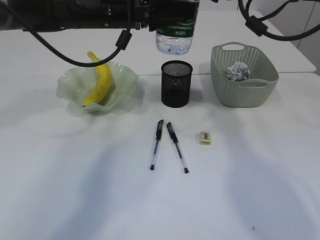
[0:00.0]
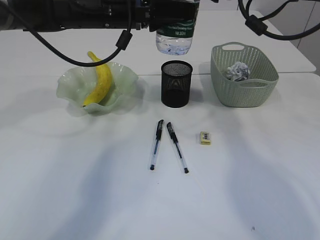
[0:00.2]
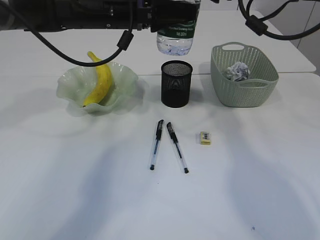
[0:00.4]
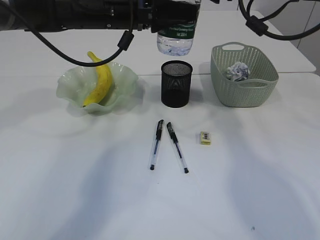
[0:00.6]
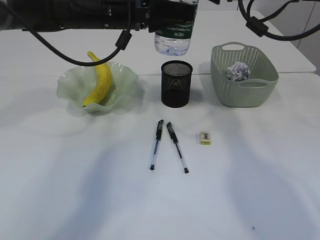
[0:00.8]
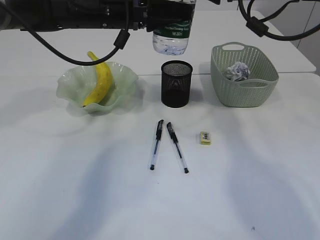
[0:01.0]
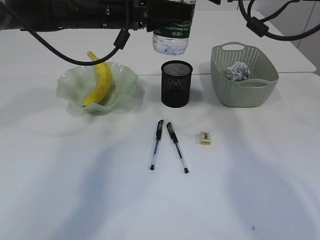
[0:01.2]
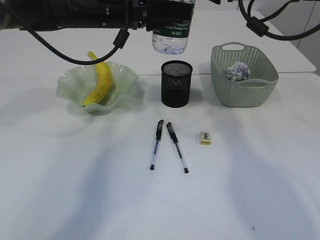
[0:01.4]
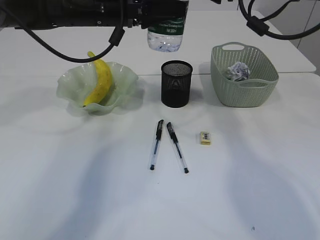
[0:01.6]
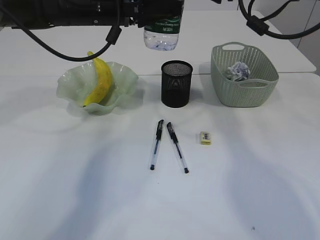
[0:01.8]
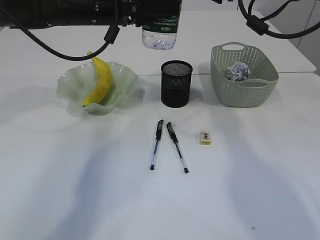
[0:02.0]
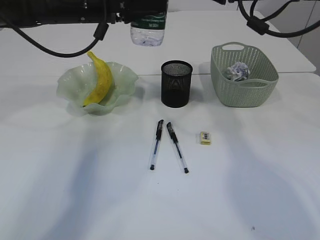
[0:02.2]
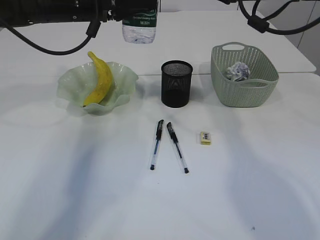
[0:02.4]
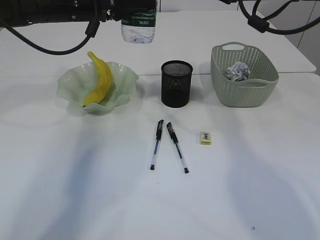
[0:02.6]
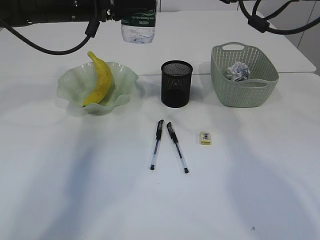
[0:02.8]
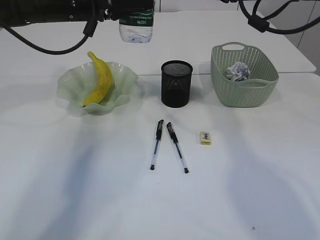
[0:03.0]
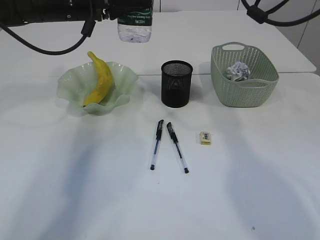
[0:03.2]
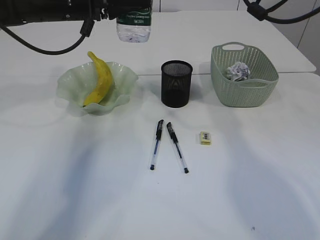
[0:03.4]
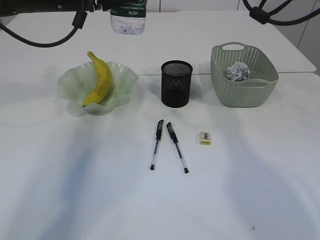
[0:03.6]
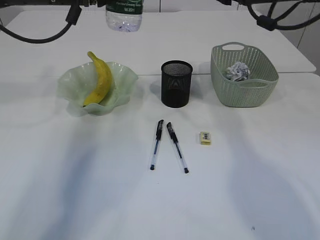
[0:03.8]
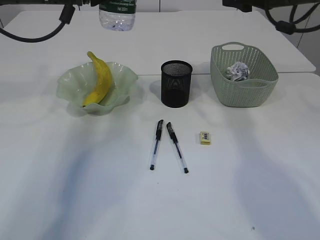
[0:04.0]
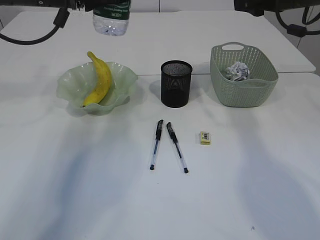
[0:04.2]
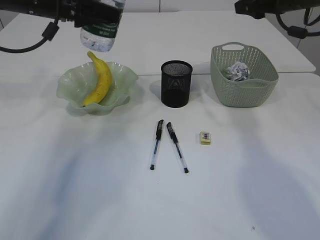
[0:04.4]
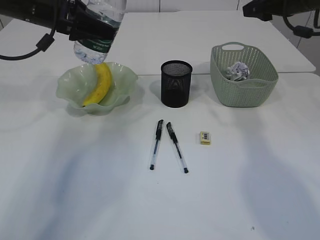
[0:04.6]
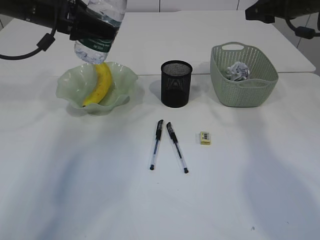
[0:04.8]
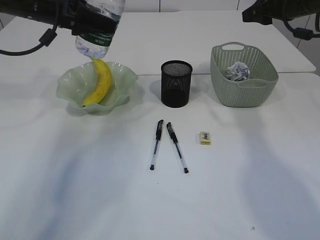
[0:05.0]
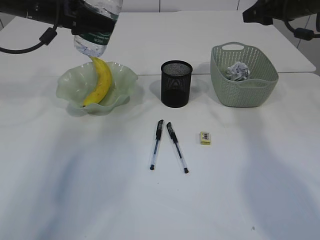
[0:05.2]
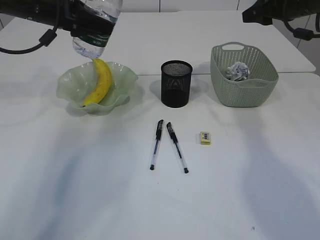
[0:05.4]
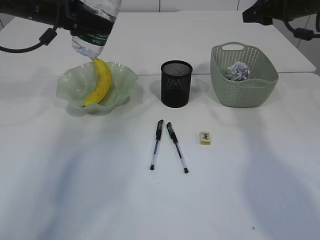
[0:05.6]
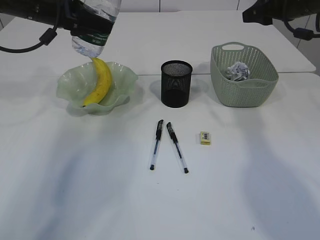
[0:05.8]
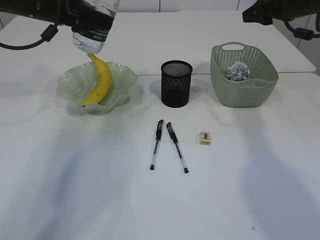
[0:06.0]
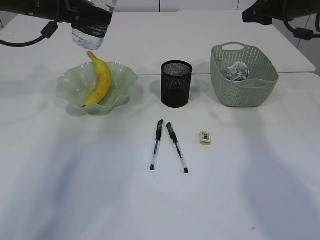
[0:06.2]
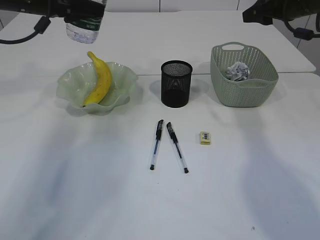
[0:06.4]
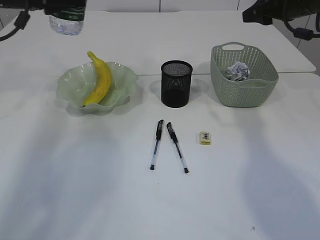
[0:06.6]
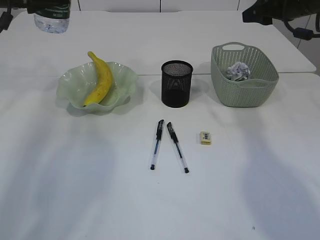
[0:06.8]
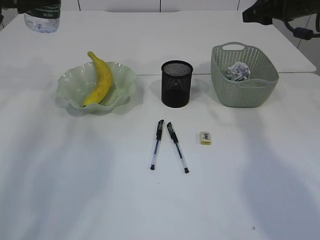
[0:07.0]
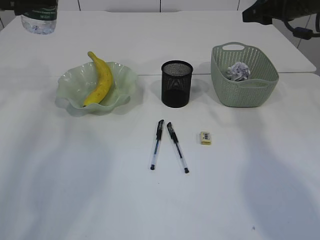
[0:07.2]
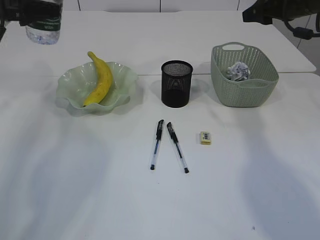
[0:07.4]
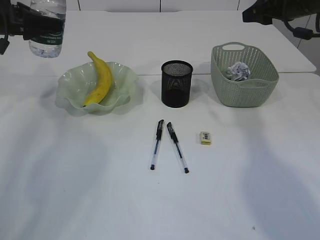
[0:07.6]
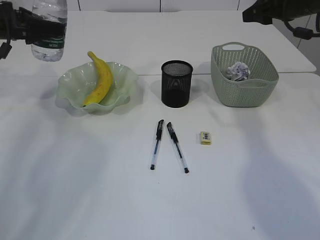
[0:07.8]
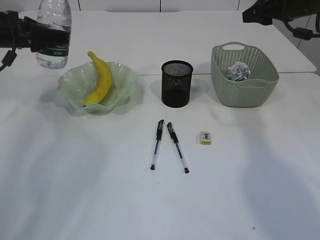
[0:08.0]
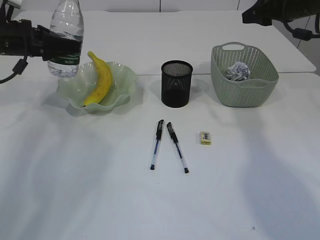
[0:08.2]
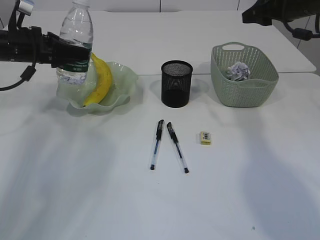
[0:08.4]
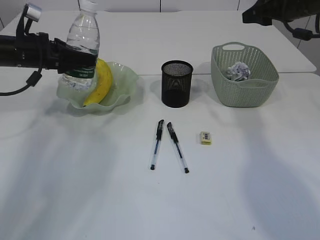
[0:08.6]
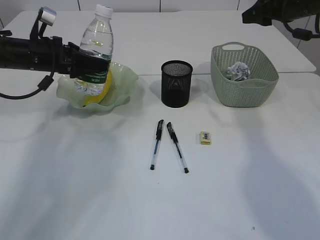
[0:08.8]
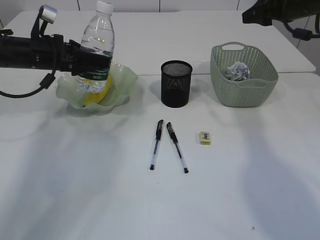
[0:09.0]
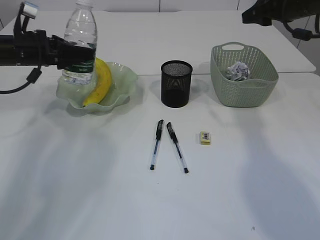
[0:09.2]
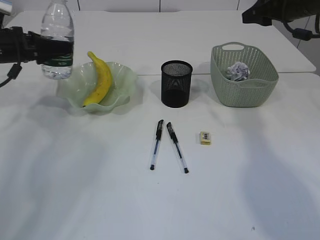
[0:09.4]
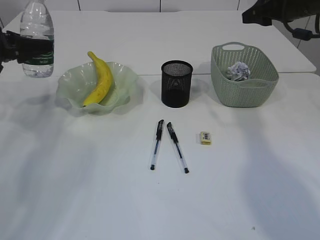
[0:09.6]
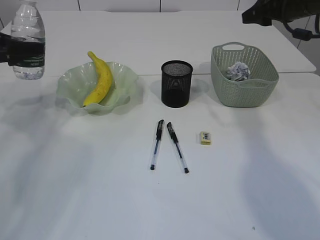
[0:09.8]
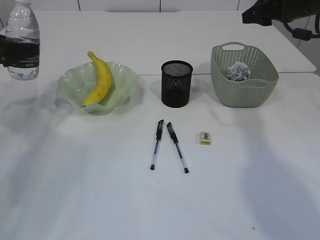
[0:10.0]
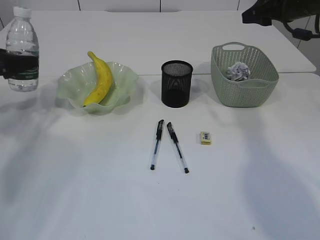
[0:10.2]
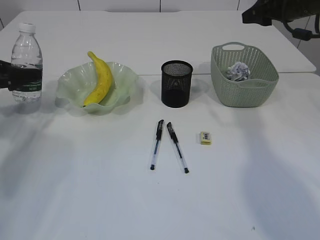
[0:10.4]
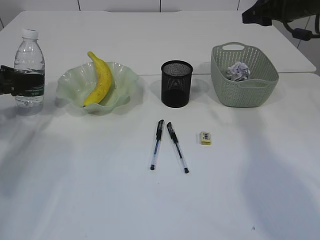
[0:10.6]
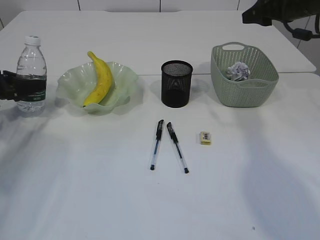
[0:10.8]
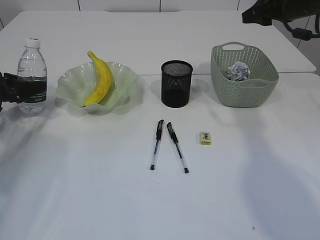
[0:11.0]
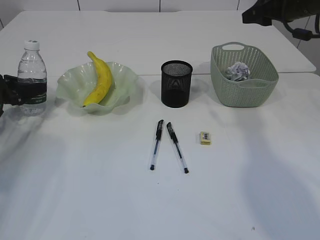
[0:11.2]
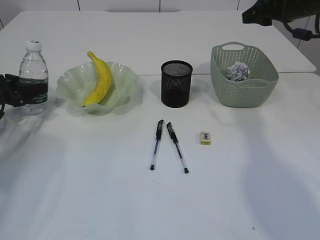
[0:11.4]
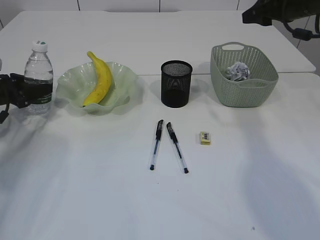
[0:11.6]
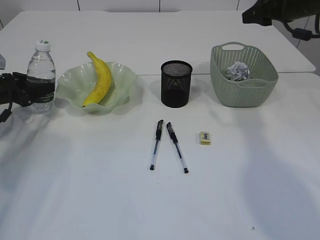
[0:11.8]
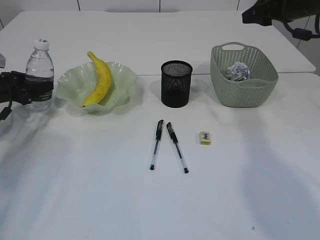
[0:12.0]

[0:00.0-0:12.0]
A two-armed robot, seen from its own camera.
Step, 0:00.0 to 0:02.4: transfer the bottle to the left arm.
0:00.0 to 0:01.6: The grippers make only small movements.
0:01.6 to 0:03.0: The left gripper goes some 5 cm to the left. The right gripper closes its fingers.
0:03.0 to 0:04.4: The left gripper is displaced to the left by approximately 5 cm; the right gripper shifts roughly 10 cm to the right.
0:04.4 to 0:06.0: There are only small adjustments of the grippers.
0:06.0 to 0:07.6: The left gripper travels to the left by roughly 10 cm.
0:07.6 to 0:09.0: The left gripper goes approximately 10 cm to the right and downward.
0:09.0 to 0:10.4: The left gripper heads to the left, covering some 15 cm.
0:10.4 to 0:12.0: The left gripper is displaced downward by about 5 cm.

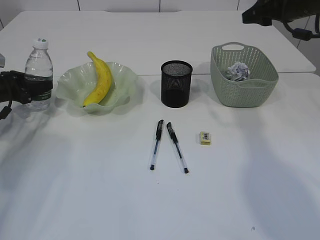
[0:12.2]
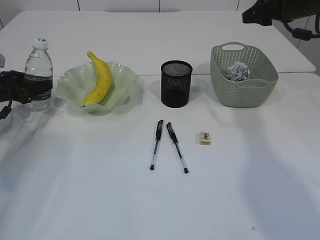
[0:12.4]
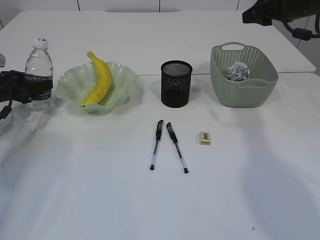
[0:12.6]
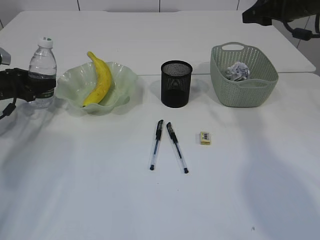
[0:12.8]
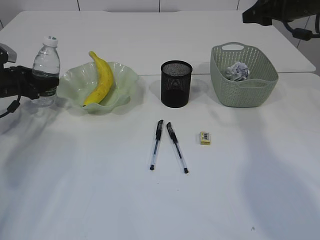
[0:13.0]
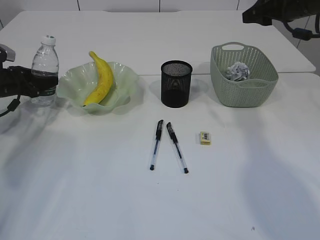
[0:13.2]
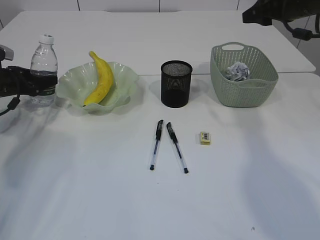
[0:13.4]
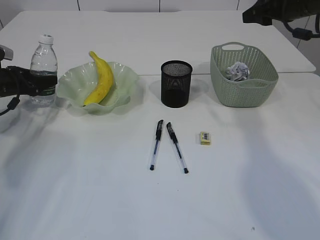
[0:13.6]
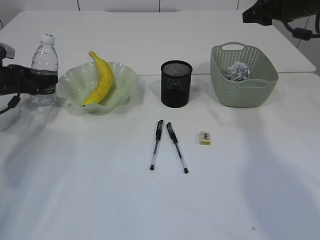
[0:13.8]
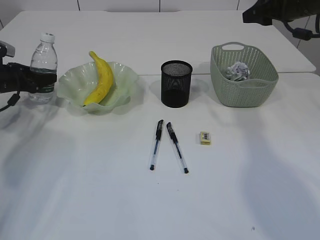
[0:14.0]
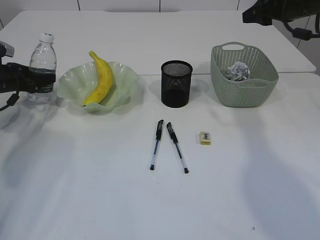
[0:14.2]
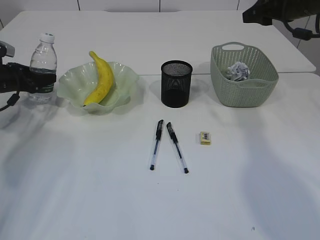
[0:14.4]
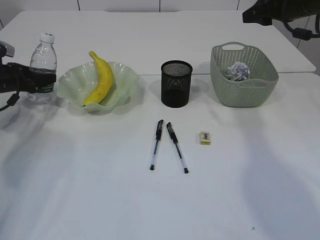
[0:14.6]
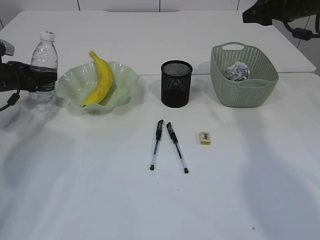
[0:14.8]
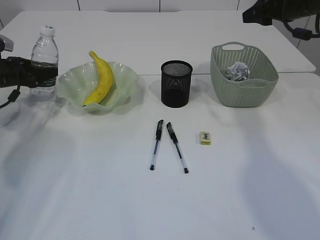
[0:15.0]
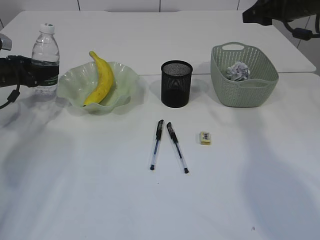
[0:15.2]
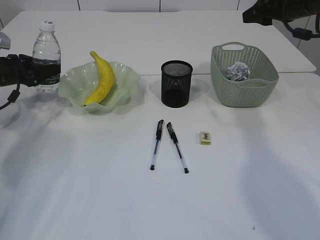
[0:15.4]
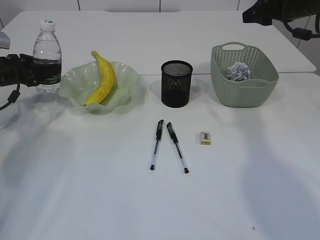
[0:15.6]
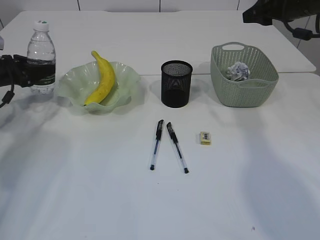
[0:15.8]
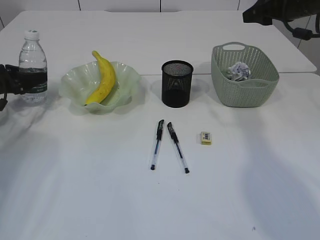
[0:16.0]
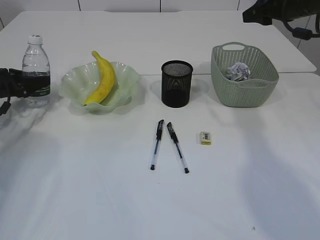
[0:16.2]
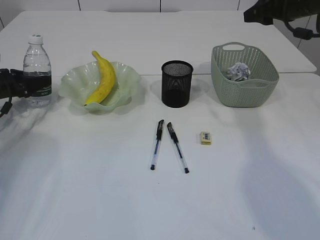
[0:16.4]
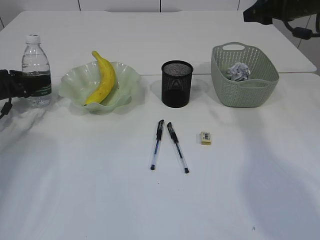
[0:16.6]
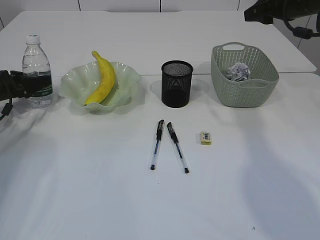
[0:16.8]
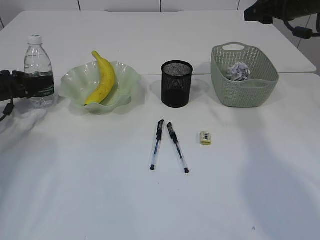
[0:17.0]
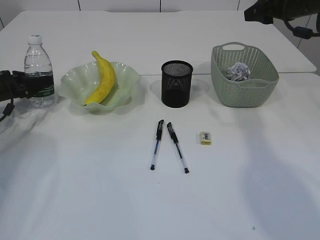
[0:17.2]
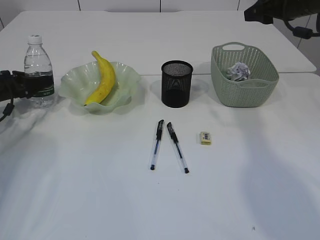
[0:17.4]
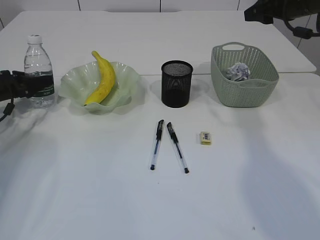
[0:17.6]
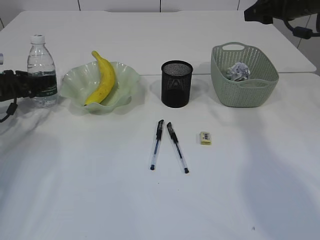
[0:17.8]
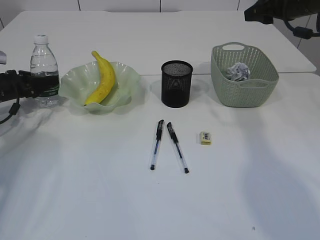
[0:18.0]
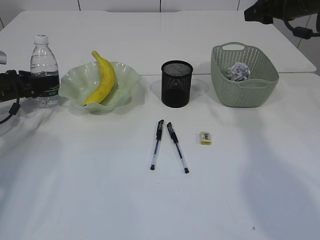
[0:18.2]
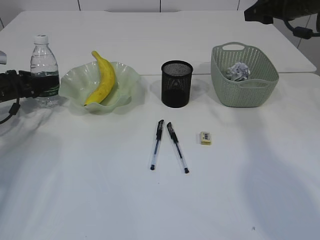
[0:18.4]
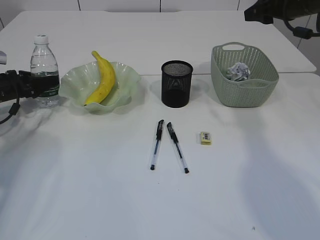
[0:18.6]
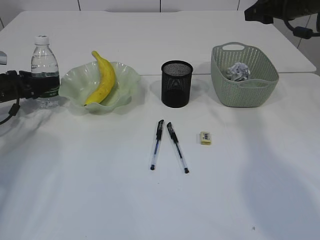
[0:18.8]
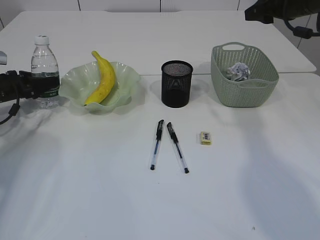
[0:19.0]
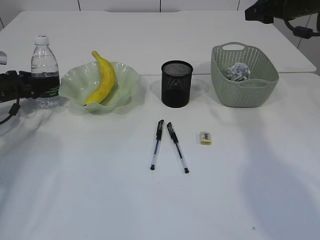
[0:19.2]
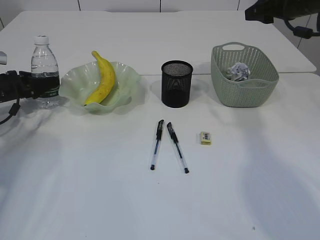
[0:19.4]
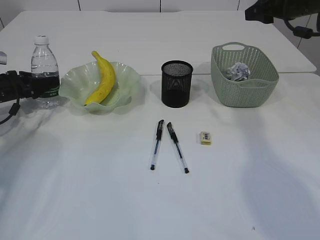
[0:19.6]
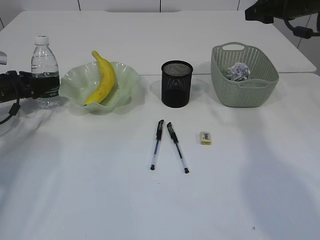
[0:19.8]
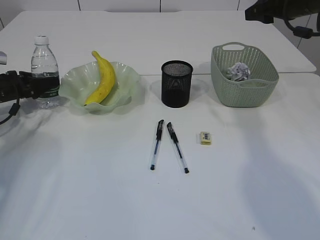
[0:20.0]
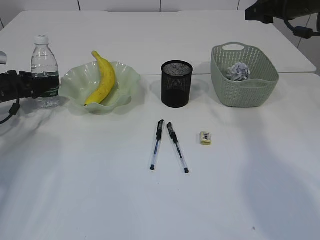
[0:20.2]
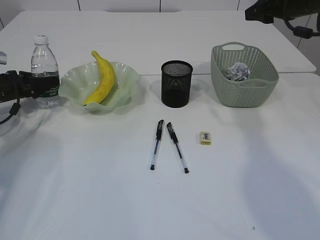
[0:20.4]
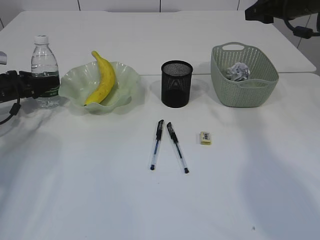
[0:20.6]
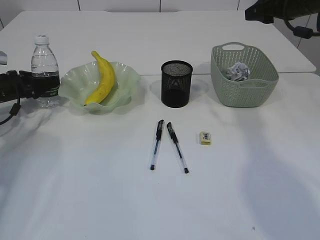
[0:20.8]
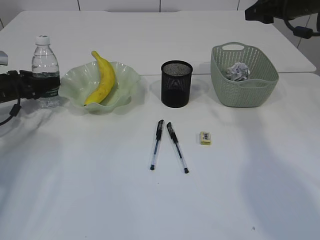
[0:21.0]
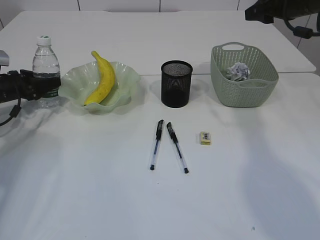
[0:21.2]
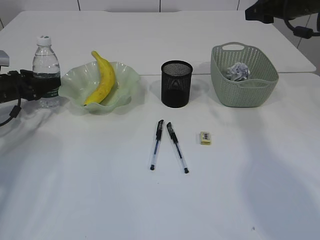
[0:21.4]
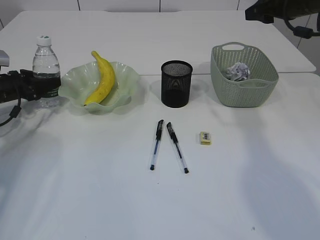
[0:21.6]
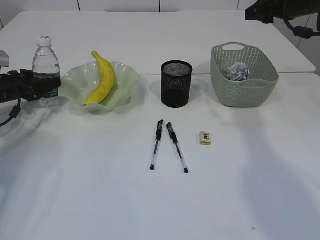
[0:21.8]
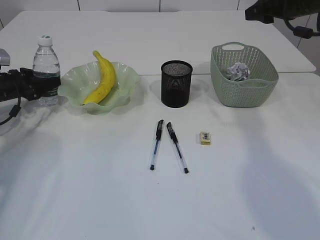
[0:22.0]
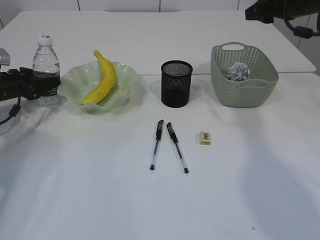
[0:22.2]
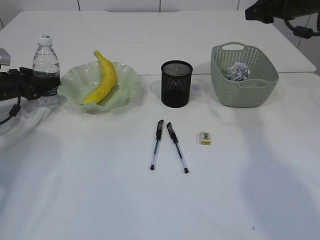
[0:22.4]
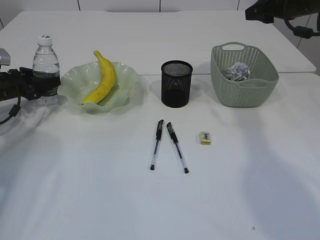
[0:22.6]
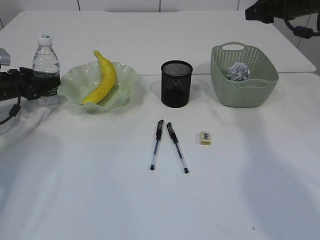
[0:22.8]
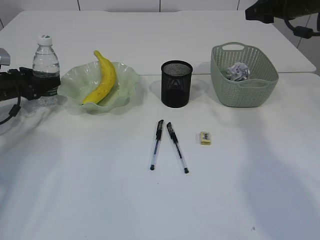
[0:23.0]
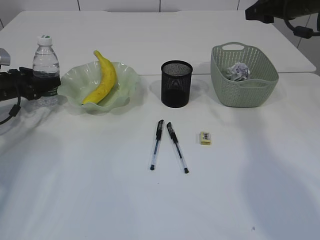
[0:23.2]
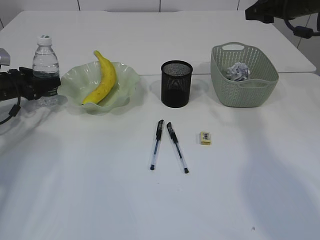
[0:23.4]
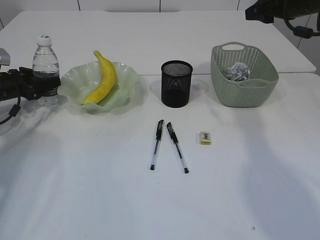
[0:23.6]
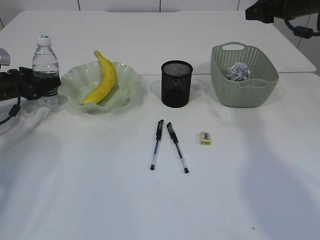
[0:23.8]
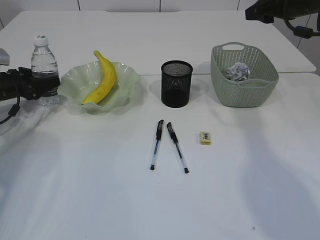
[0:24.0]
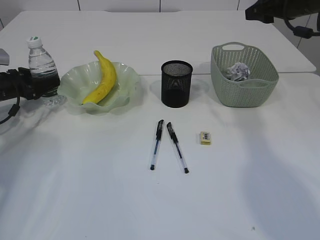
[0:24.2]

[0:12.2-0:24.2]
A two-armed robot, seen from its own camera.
0:12.2 to 0:18.2: The grippers stay close to where they were, moving slightly.
0:18.2 to 0:19.8: Neither gripper changes place.
0:21.2 to 0:24.2: Neither gripper changes place.
